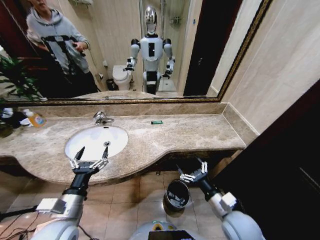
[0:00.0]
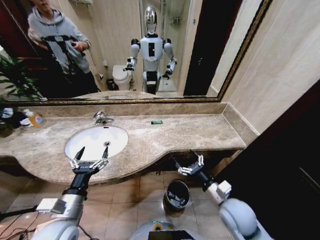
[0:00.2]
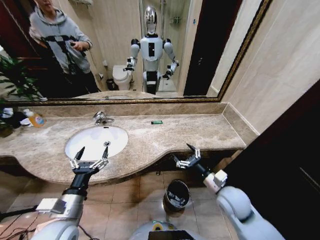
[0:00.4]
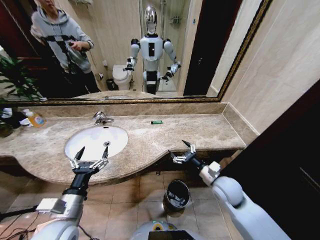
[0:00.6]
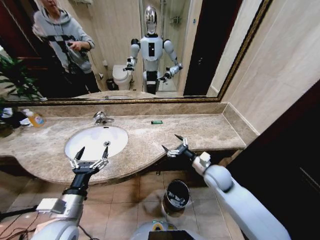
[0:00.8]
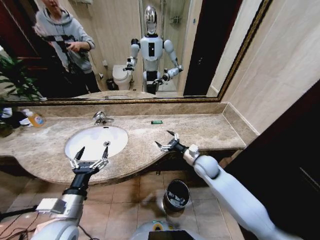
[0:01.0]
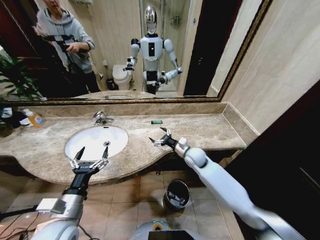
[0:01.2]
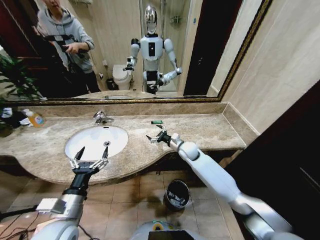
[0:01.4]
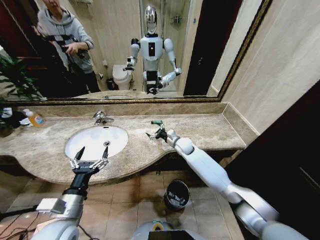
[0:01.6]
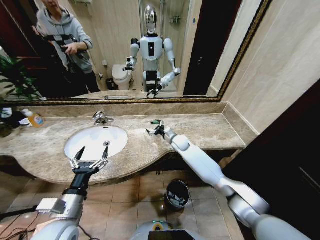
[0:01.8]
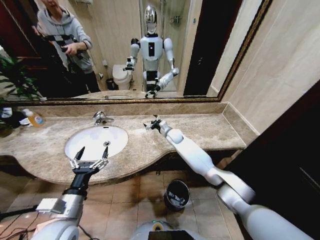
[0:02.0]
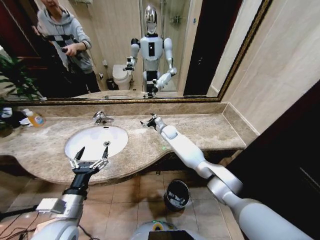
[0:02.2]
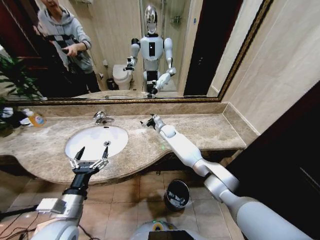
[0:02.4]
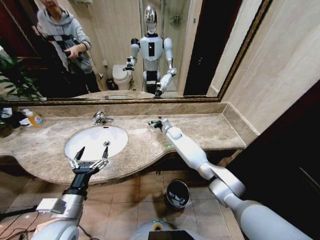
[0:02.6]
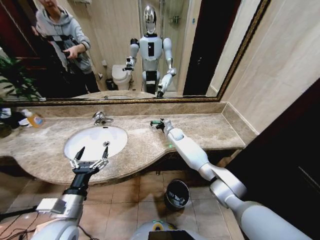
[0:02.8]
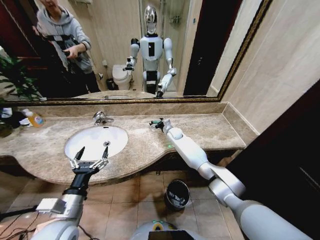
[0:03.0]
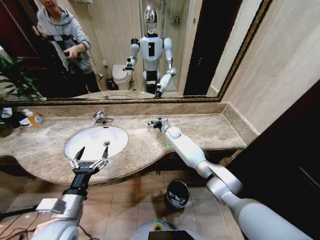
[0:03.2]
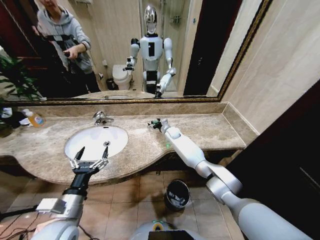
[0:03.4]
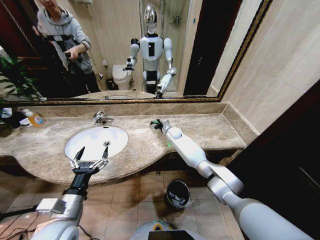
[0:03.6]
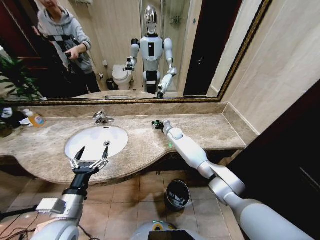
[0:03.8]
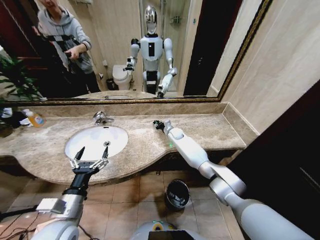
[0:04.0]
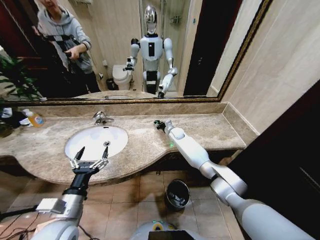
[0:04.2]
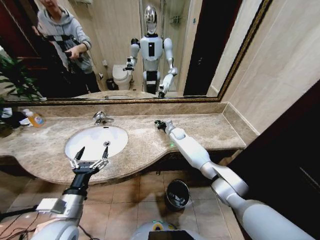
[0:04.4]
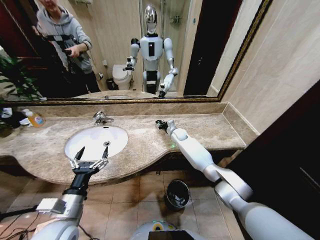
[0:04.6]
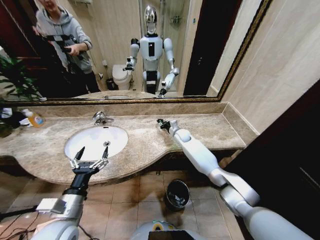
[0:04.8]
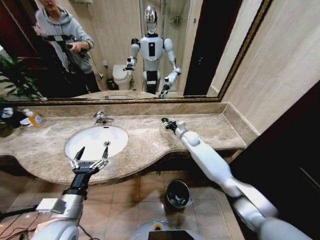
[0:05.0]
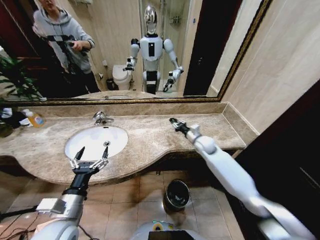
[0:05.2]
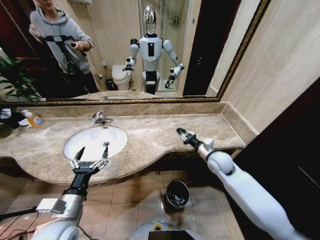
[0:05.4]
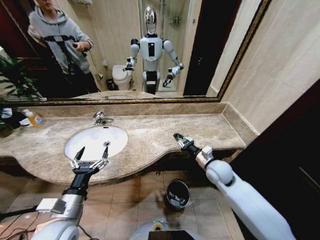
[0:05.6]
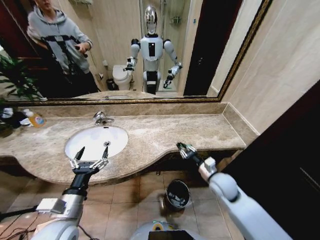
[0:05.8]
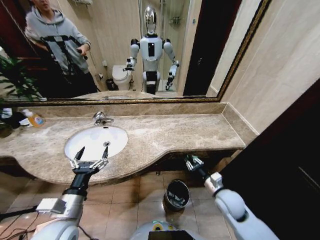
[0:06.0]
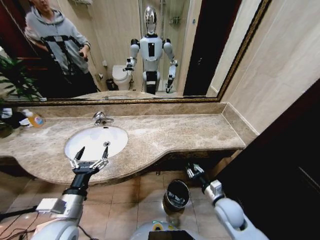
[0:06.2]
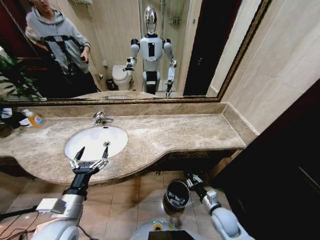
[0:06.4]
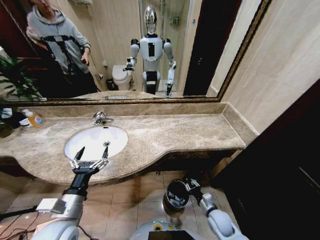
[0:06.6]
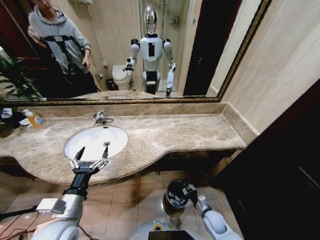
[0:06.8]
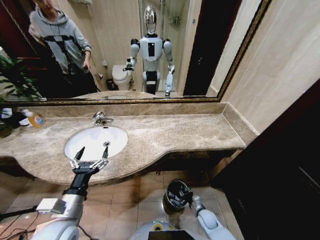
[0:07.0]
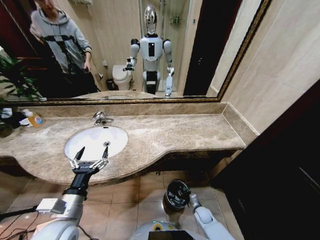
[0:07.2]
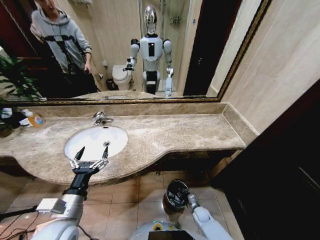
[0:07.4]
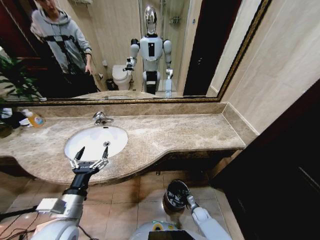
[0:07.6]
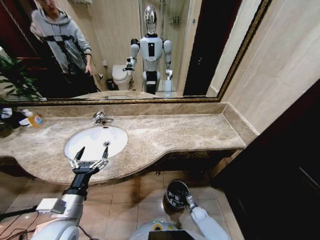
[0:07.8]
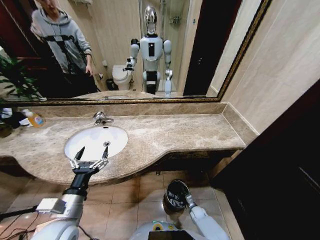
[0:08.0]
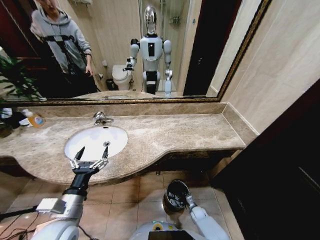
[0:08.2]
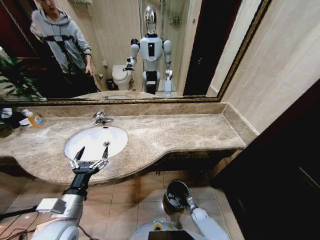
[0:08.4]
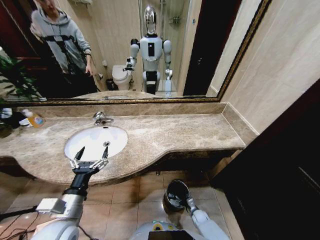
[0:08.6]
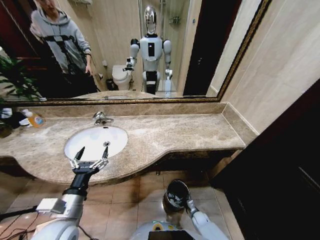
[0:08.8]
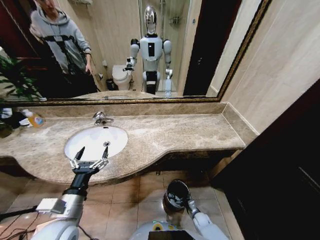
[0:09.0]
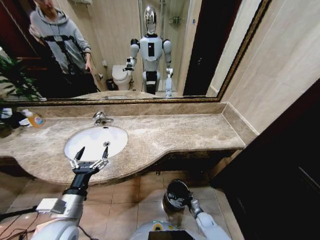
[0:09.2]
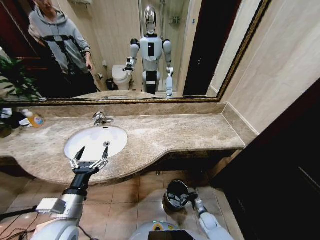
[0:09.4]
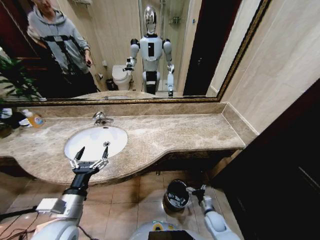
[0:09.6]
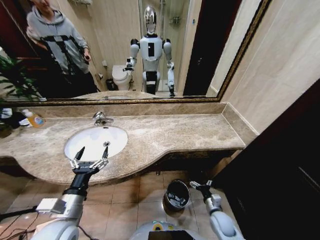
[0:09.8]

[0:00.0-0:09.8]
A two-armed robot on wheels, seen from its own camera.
Task of the whole recording: Pick up the trash from the sink and place it in the trash bin.
0:00.0 to 0:01.4: The right gripper heads forward, covering roughly 30 cm.
0:01.4 to 0:02.8: The right gripper heads forward, covering approximately 15 cm.
0:02.8 to 0:04.2: The right gripper closes up.
0:04.2 to 0:05.6: The right gripper shifts roughly 30 cm backward and to the right.
0:05.6 to 0:07.0: The right gripper travels downward and backward by approximately 35 cm.
0:07.0 to 0:08.4: The right gripper moves downward, some 10 cm.
0:08.4 to 0:09.8: The right gripper shifts roughly 20 cm upward, and opens.

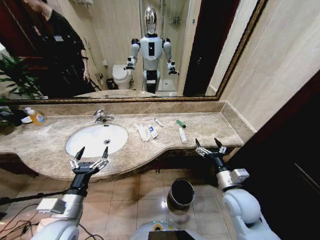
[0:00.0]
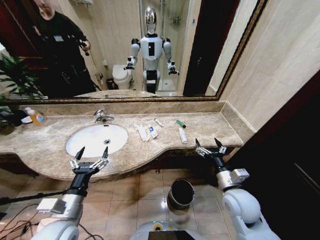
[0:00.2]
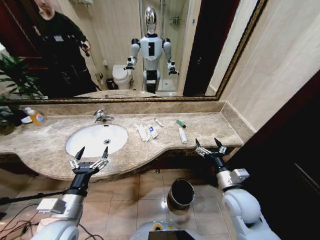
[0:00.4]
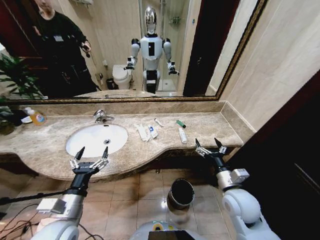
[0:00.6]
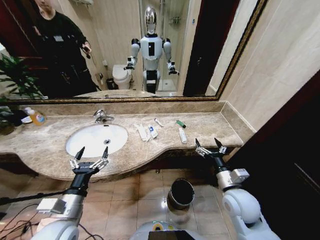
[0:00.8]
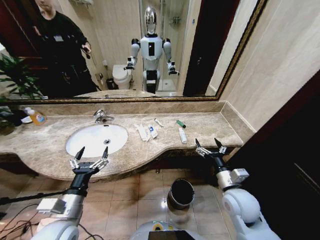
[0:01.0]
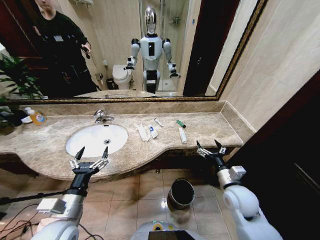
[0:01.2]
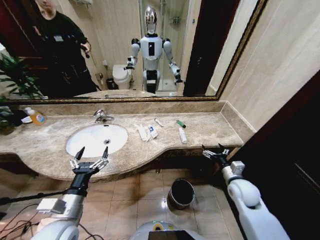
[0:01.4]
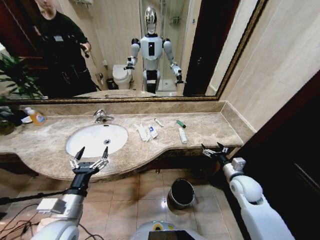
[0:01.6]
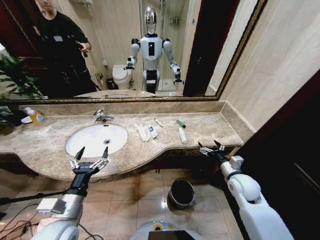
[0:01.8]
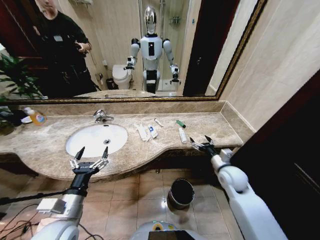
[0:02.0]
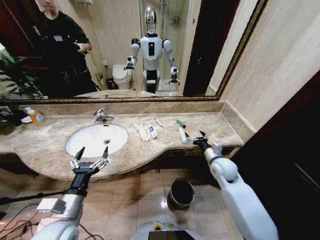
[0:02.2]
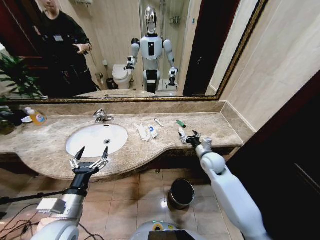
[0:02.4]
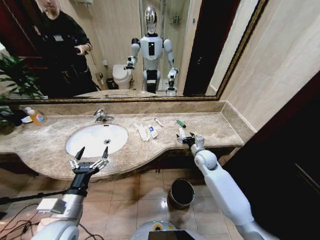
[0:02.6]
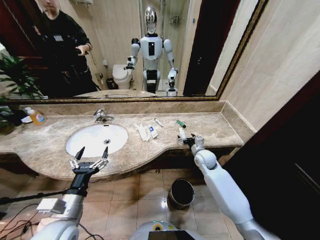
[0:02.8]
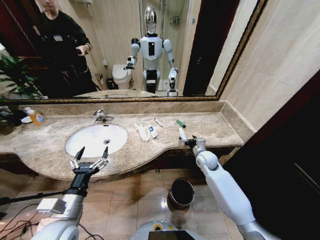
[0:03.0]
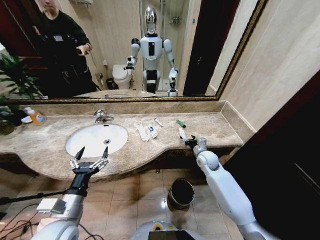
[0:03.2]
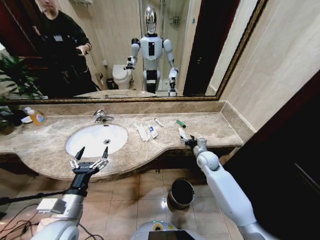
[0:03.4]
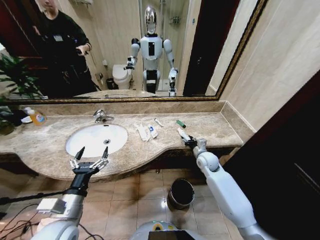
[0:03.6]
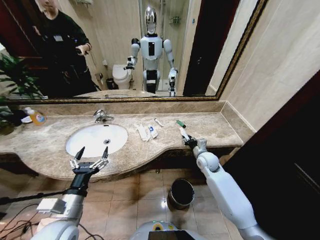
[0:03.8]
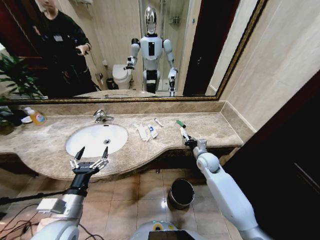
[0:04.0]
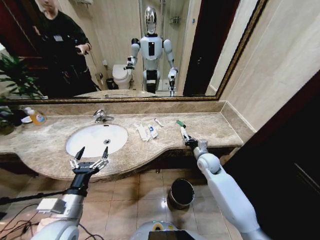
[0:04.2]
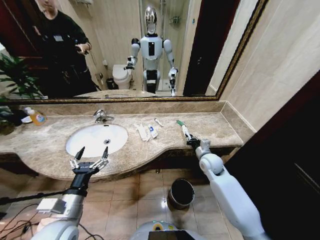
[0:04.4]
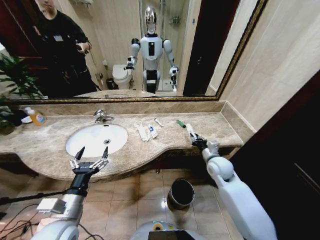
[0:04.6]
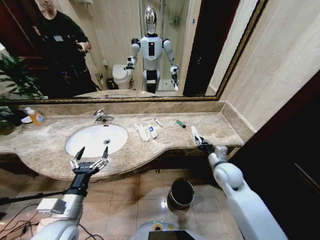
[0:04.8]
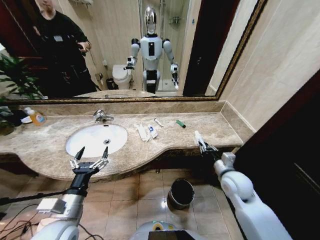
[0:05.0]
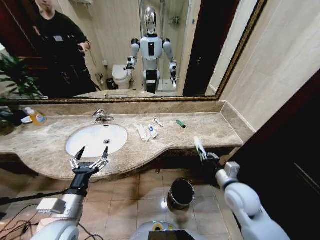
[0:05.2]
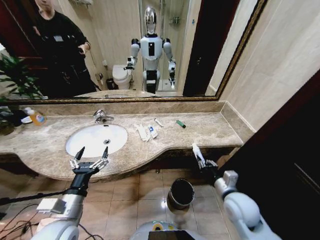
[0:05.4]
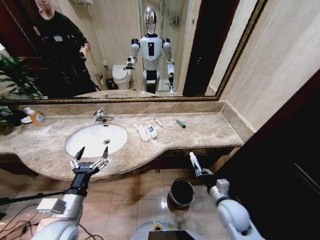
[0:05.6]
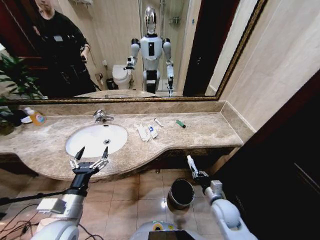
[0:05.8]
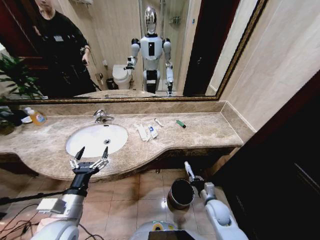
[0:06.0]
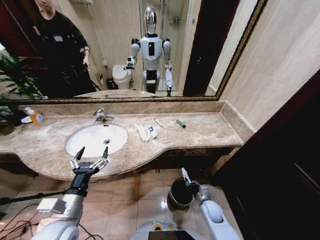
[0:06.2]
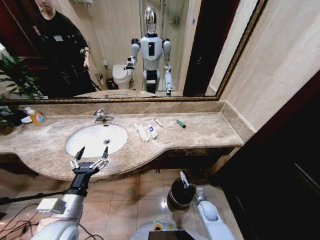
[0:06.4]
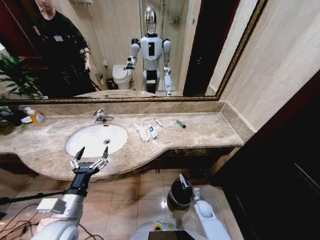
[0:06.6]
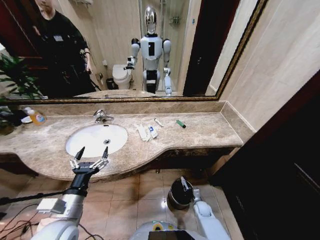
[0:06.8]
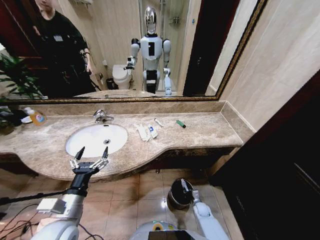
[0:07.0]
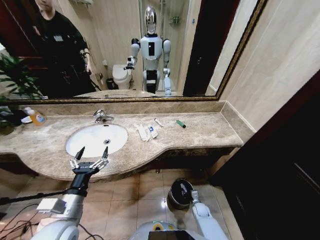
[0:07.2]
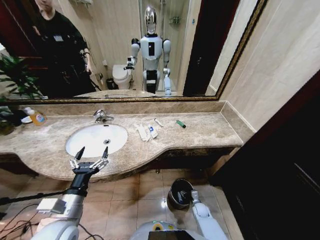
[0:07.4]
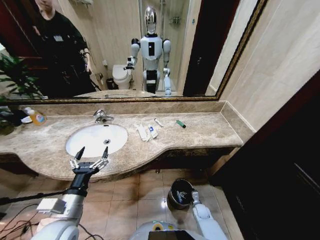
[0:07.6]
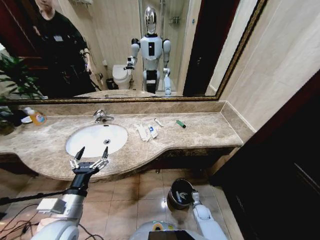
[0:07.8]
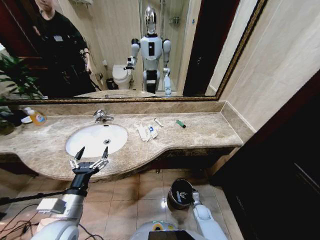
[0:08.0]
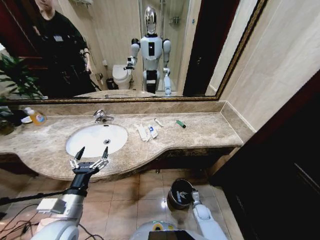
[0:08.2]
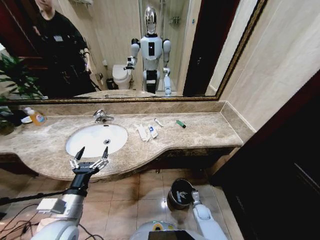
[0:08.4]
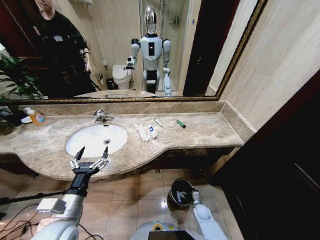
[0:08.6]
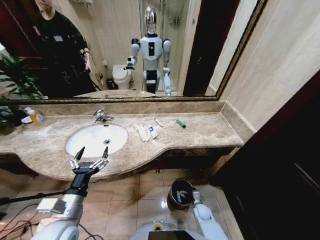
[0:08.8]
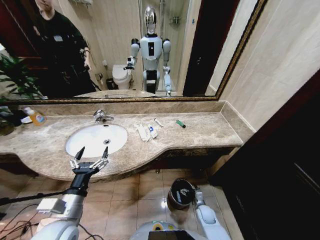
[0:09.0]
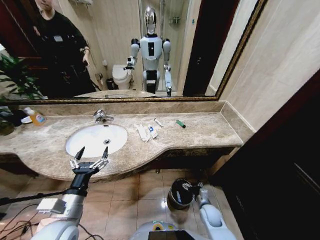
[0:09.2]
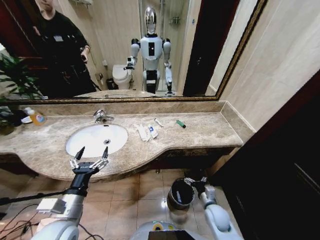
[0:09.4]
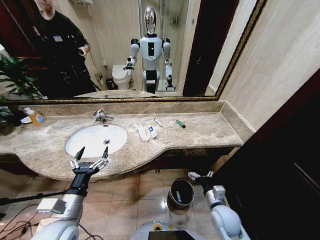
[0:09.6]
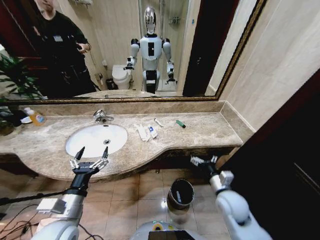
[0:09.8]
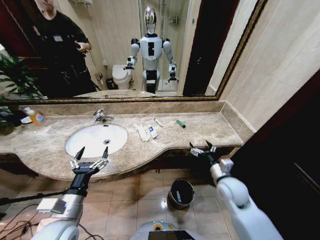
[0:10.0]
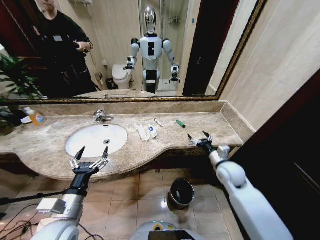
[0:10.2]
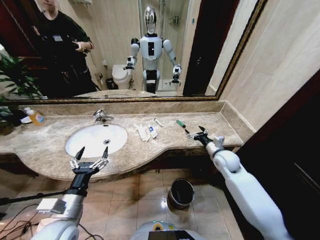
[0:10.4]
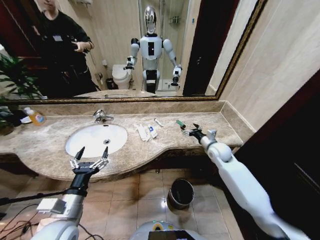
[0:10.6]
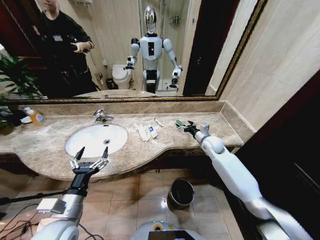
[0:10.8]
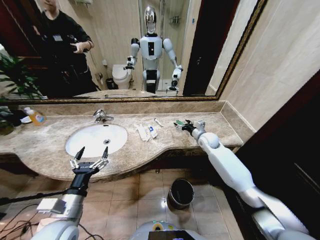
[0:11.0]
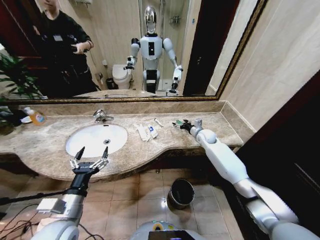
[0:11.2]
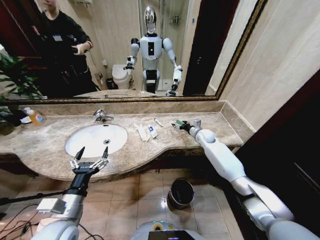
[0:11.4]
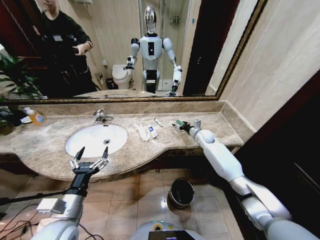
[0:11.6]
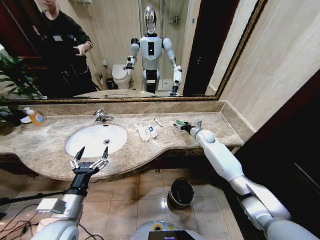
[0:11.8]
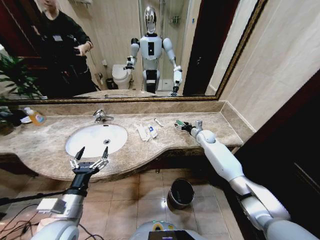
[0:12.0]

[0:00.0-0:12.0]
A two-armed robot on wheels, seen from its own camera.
Task of the whole recording: Pick up the trash from the sink and place it in the trash bin.
0:01.6 to 0:03.0: The right gripper is displaced forward and to the left by some 15 cm.
0:03.0 to 0:04.4: The right gripper closes its fingers.
0:04.4 to 0:06.0: The right gripper travels downward and backward by roughly 20 cm.
0:06.0 to 0:07.6: The right gripper travels downward by approximately 15 cm, and opens.
0:07.6 to 0:09.0: The right gripper heads upward, covering roughly 5 cm.
0:09.0 to 0:10.4: The right gripper travels upward and forward by about 35 cm.
0:10.4 to 0:12.0: The right gripper travels forward by some 15 cm.
